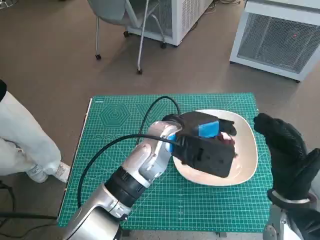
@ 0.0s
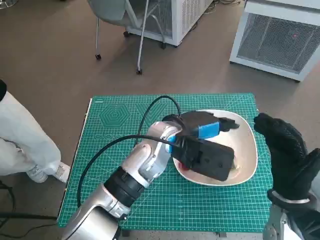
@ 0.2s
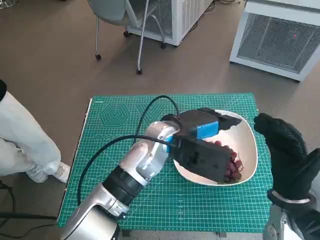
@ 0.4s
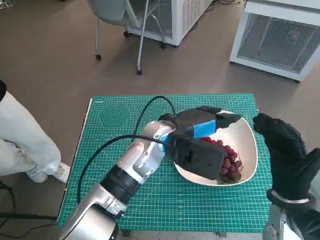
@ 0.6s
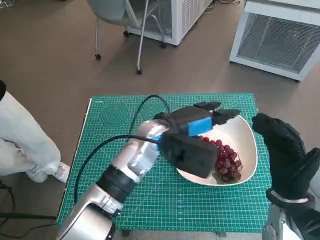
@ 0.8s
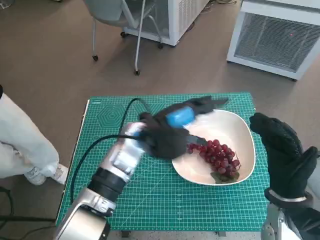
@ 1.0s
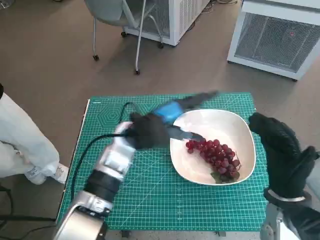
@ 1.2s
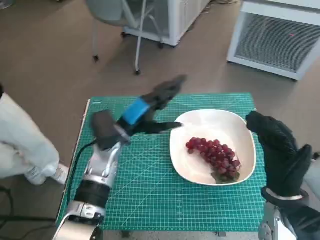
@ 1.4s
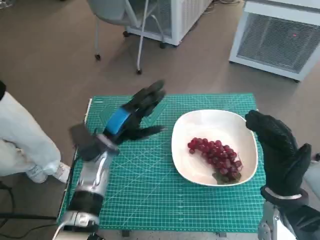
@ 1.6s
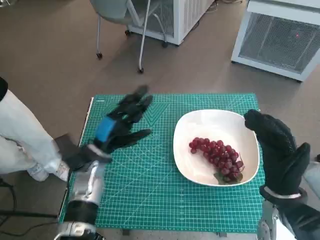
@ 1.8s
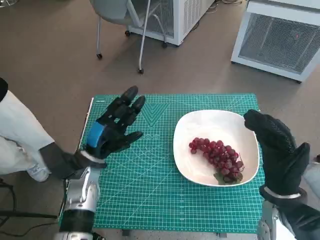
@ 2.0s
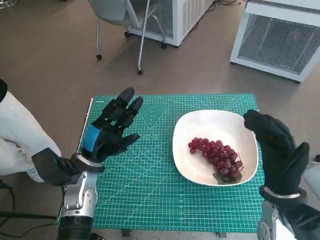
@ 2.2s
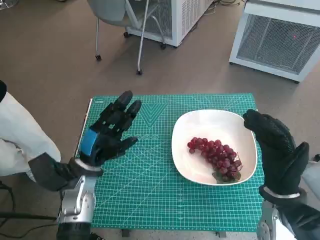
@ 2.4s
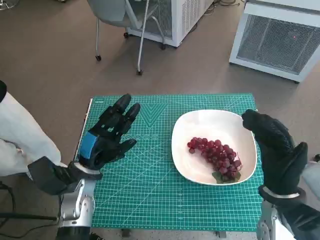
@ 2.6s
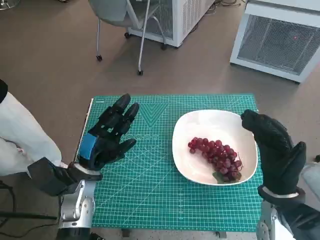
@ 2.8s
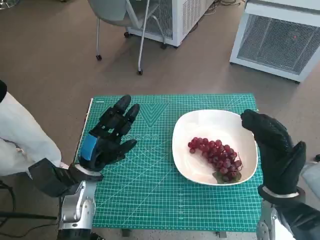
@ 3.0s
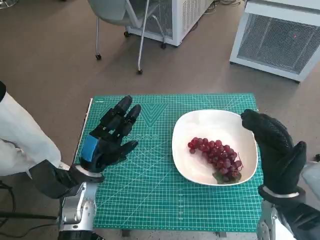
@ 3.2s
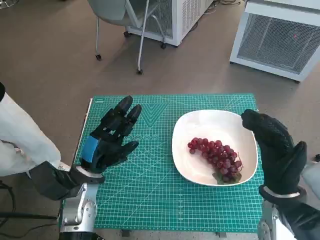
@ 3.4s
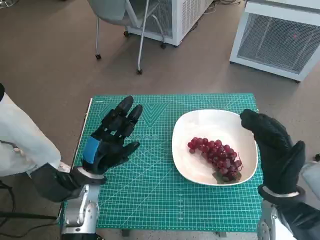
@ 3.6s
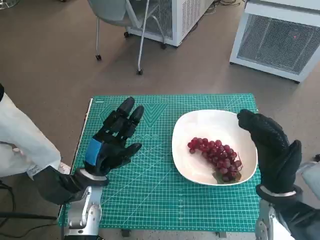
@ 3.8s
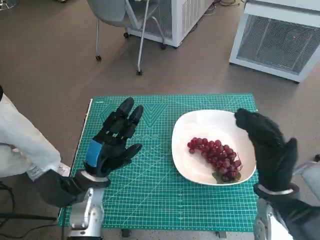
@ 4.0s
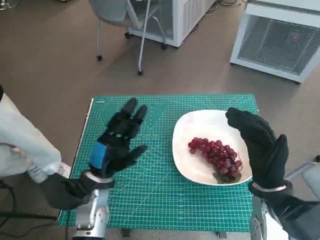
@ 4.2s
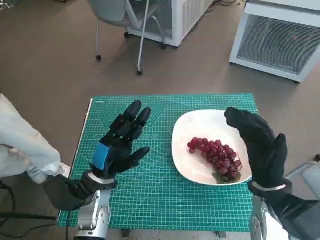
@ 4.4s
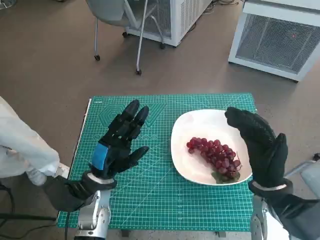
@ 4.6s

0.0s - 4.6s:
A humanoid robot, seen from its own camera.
Task of the whole recording: Pick up the grapes and put them on the plate.
0.0s - 1.6s: The left hand heads to the left and downward, covering approximately 15 cm.
1.6s - 3.0s: The left hand heads backward, covering some 5 cm.
3.0s - 4.6s: The hands stay close to where they were, moving slightly.

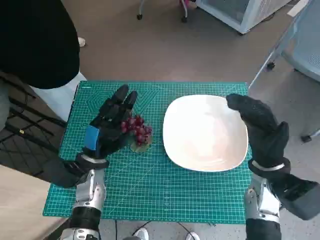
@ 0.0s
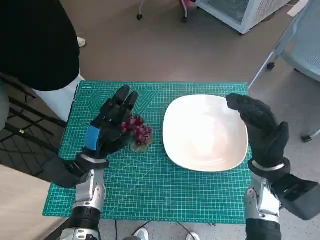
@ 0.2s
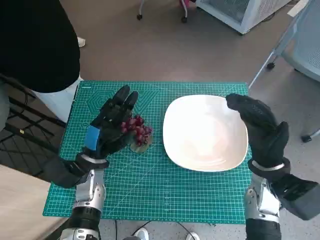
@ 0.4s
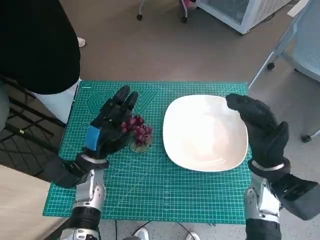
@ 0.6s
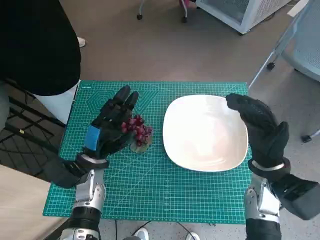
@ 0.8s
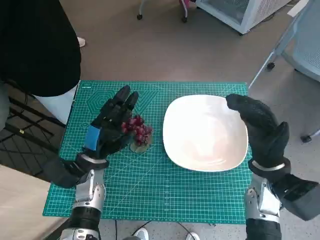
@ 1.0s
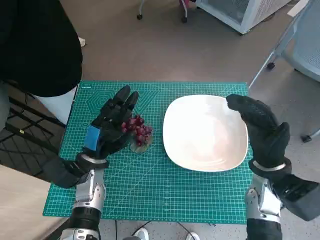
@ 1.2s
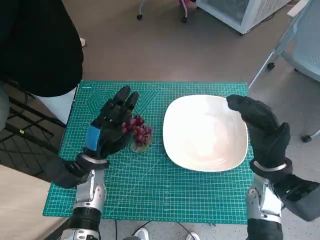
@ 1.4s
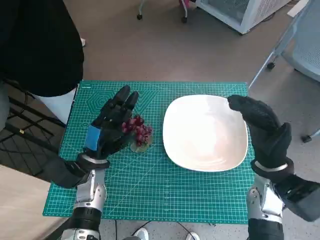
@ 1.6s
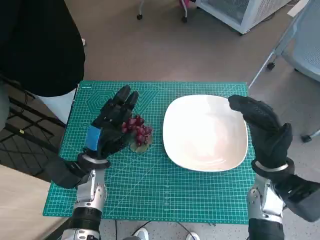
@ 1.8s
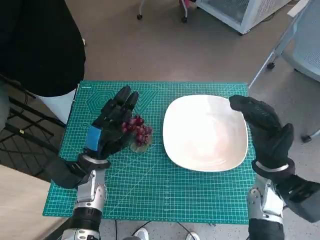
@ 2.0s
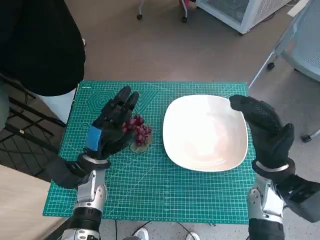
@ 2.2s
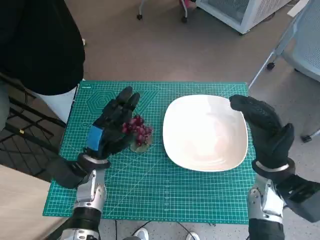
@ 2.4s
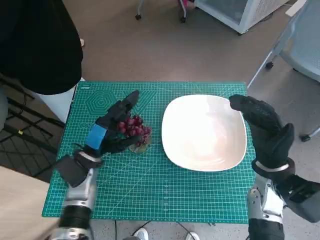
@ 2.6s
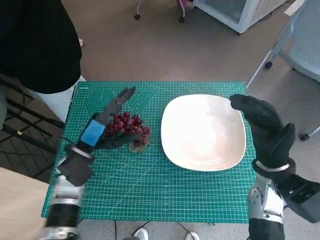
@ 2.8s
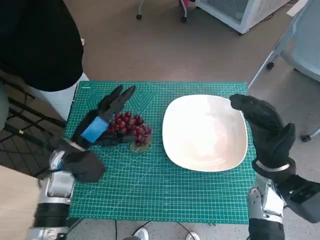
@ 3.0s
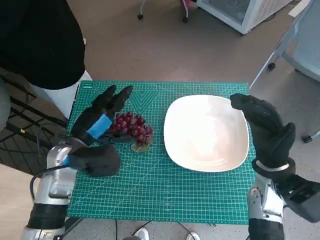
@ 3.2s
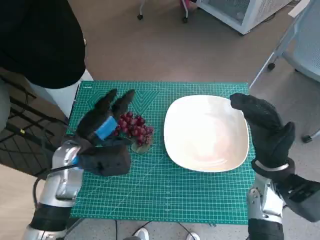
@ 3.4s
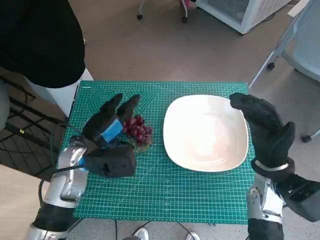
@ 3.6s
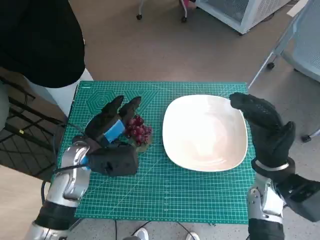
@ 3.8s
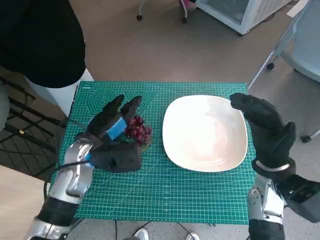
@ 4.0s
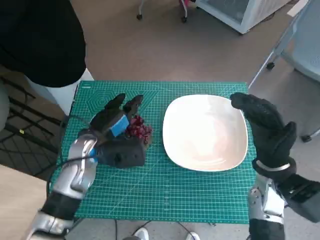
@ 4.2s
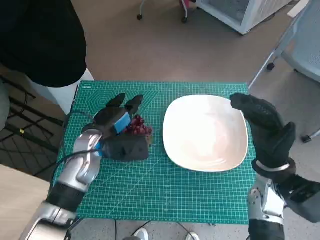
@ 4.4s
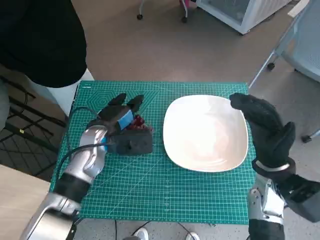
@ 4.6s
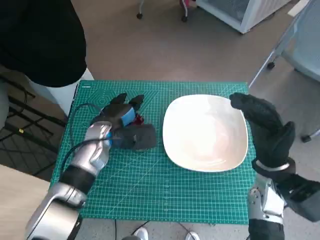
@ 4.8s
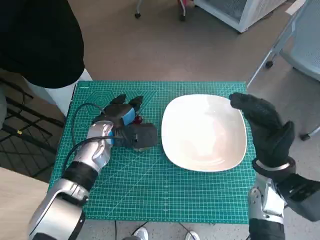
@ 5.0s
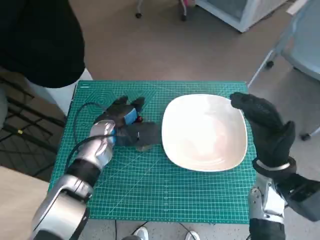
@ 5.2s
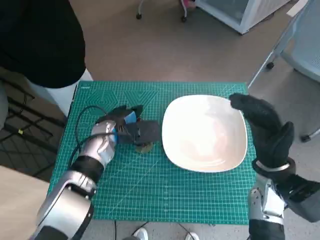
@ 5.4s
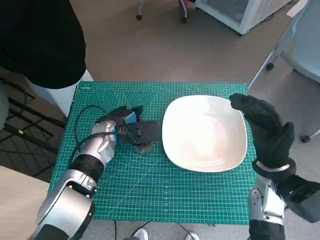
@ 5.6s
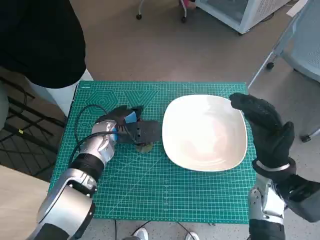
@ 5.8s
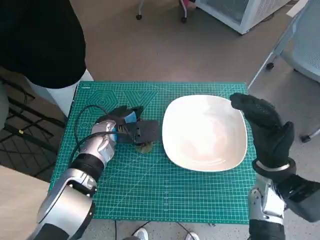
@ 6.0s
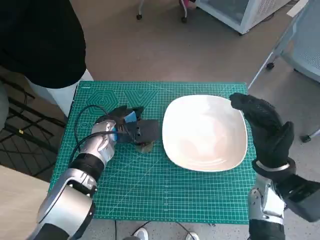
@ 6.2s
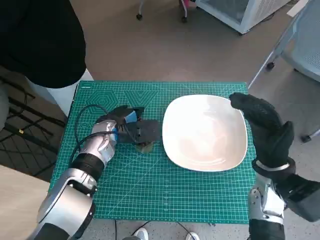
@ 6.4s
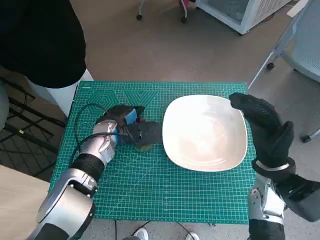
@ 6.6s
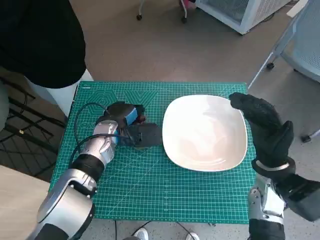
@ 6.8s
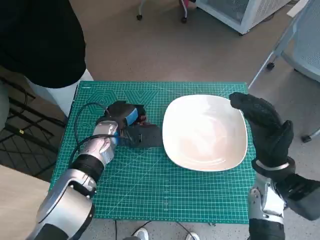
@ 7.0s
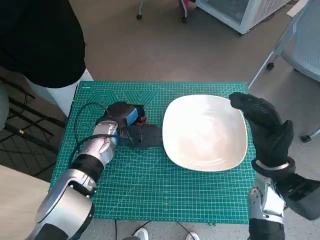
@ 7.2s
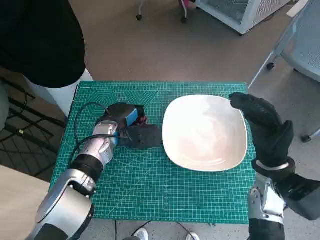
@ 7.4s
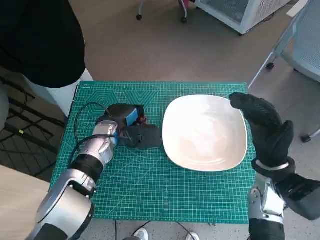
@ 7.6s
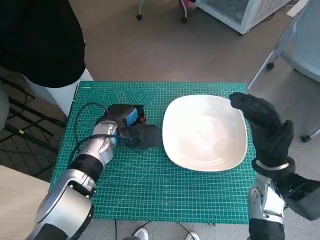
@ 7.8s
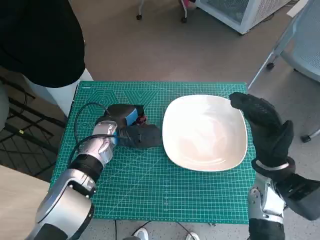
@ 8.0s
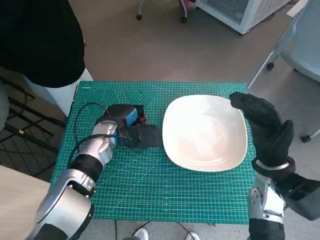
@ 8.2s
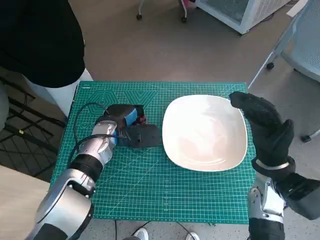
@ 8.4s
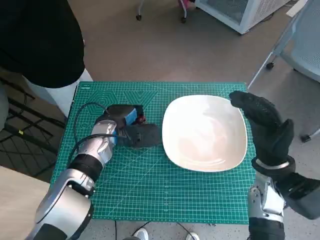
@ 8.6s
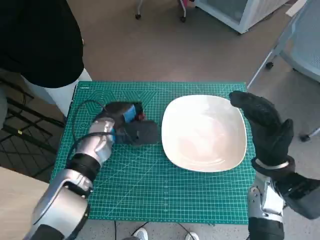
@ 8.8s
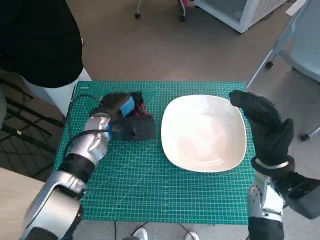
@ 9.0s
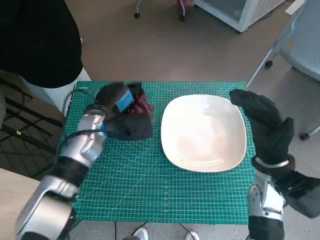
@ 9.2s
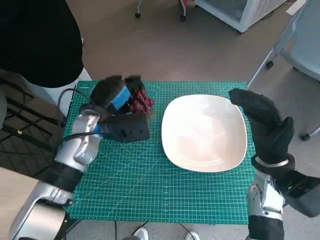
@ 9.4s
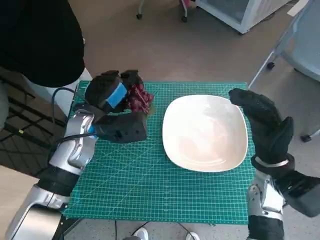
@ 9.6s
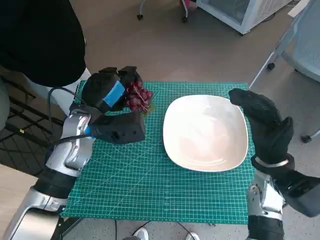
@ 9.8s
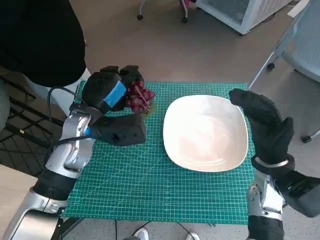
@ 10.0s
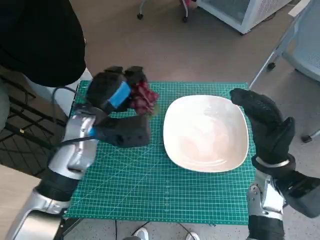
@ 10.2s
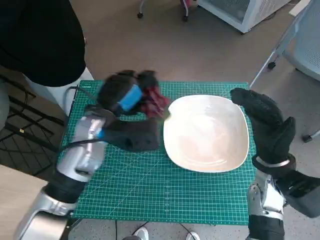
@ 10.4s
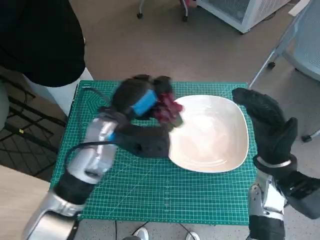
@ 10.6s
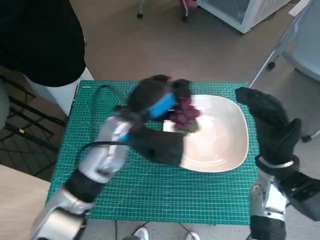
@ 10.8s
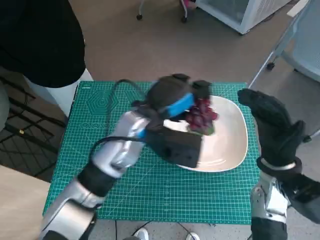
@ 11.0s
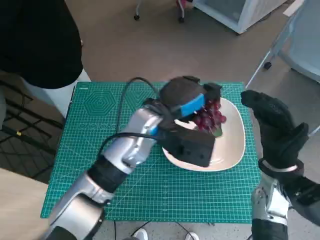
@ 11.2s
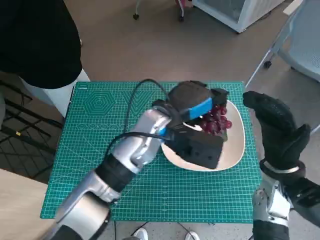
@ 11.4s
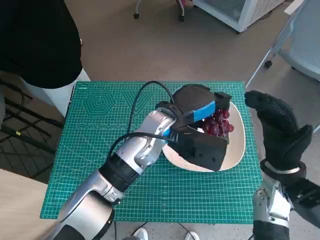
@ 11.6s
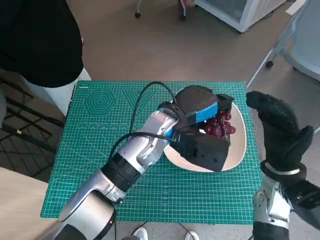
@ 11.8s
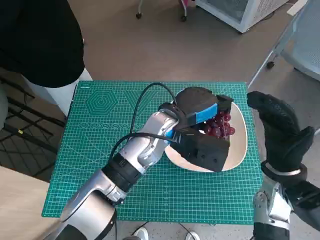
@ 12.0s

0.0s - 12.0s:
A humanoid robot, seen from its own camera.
Task of the whole recording: Pick up the grapes and put them on the plate.
Step, 0.0s - 7.8s: Grasp the grapes with left hand.
1.6s - 3.0s: The left hand shifts by some 5 cm.
3.0s - 4.4s: The left hand shifts by some 5 cm.
4.4s - 6.0s: The left hand changes place by roughly 5 cm.
6.0s - 9.0s: The hands move only a little.
9.0s - 10.4s: The left hand is displaced upward by some 5 cm.
10.4s - 12.0s: The left hand is displaced to the right by about 15 cm.

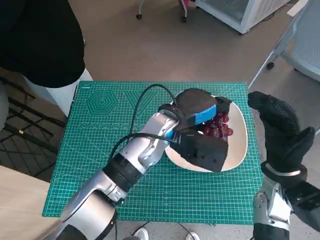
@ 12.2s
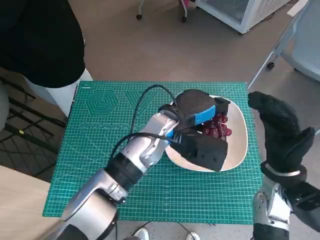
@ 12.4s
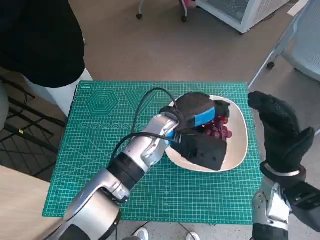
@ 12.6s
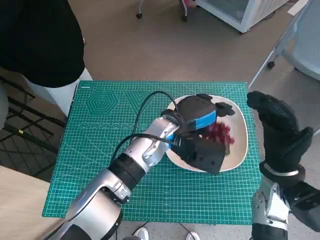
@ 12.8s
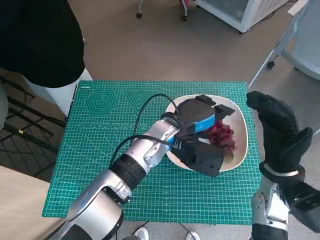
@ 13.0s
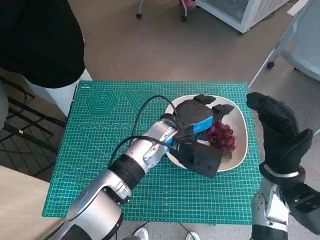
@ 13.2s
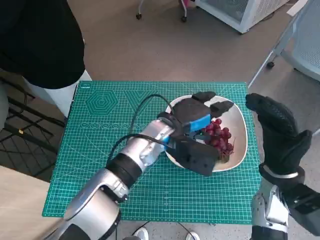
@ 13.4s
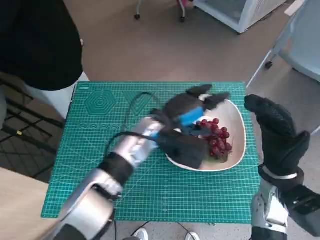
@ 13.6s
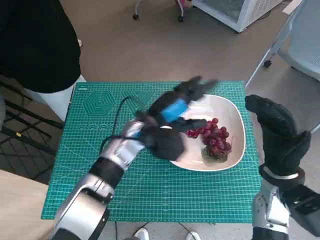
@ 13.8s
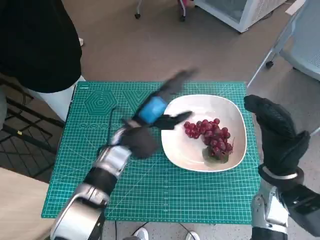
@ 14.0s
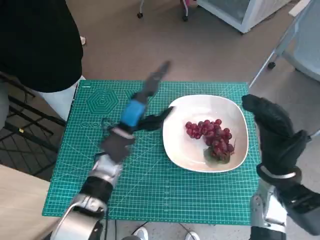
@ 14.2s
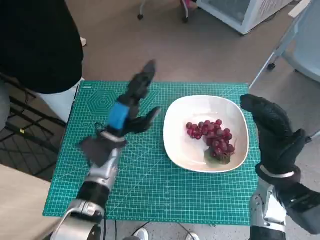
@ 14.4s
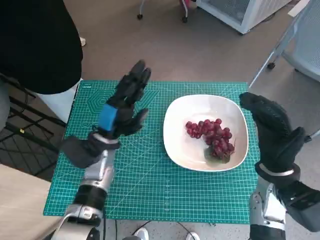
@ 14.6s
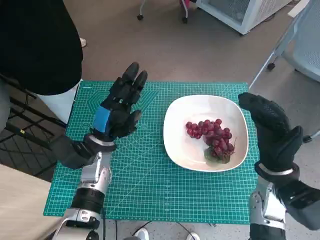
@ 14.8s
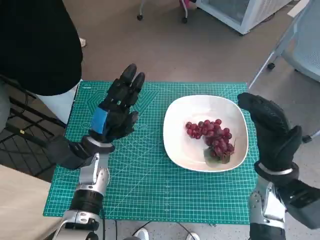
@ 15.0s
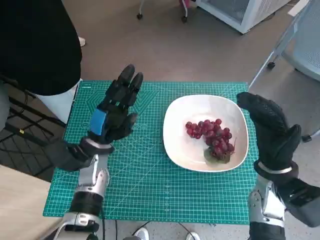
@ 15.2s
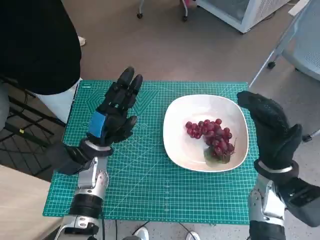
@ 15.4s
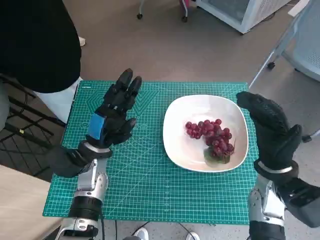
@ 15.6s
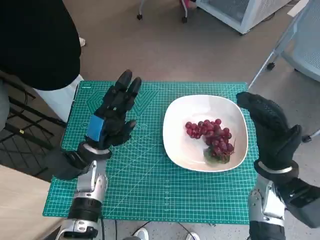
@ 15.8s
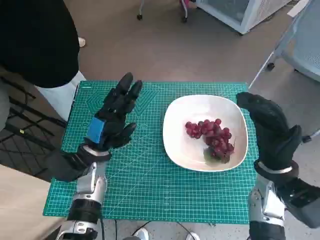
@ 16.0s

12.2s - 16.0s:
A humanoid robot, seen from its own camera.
Task of the whole recording: Pick up the grapes and put them on the plate.
12.2s - 13.4s: The hands move only a little.
13.4s - 14.8s: The left hand moves to the left, approximately 15 cm.
14.8s - 16.0s: The hands move only a little.

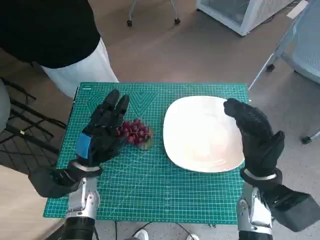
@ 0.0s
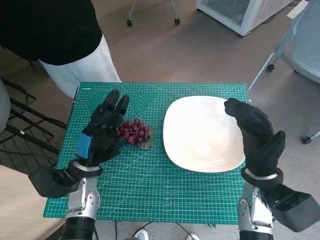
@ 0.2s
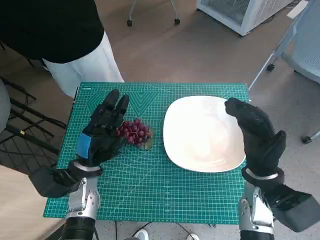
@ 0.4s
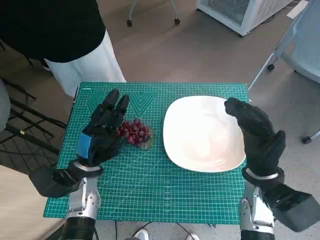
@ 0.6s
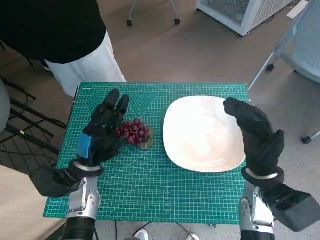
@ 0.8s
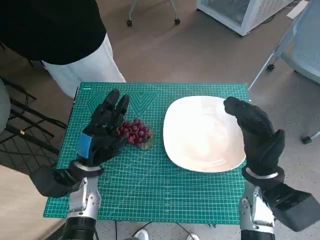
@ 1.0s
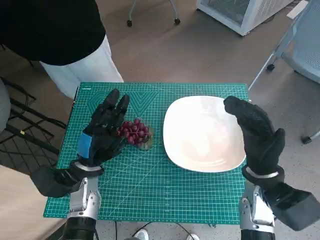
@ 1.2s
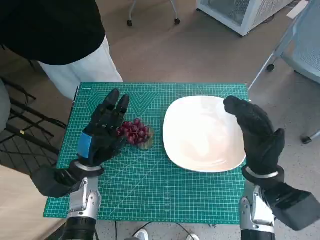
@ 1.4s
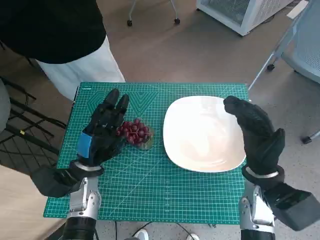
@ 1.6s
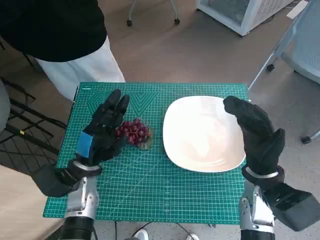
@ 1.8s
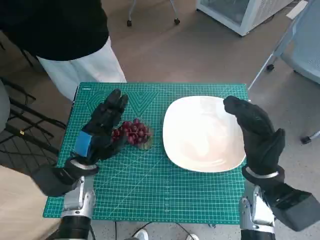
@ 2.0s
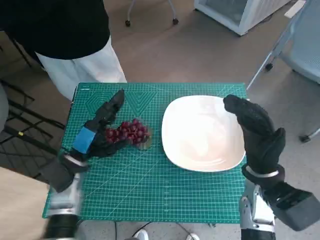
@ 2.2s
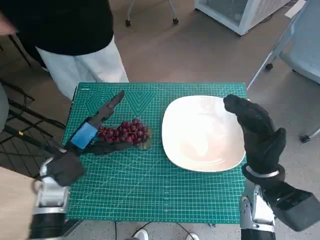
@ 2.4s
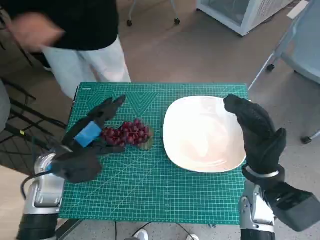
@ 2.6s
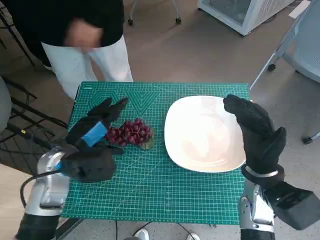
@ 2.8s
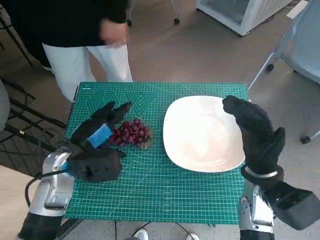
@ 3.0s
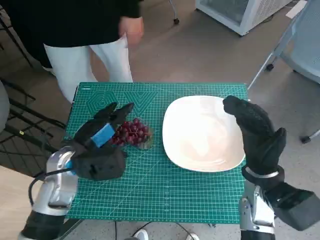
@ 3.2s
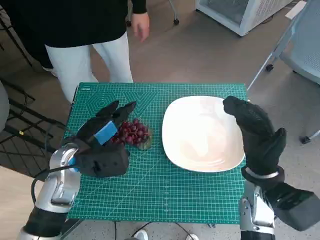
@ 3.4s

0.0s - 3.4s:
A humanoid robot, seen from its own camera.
Task of the whole recording: Pick up the grapes and put them on the plate.
1.6s - 3.4s: The left hand is displaced upward by about 5 cm.
